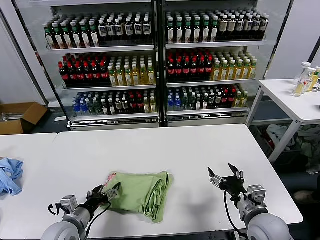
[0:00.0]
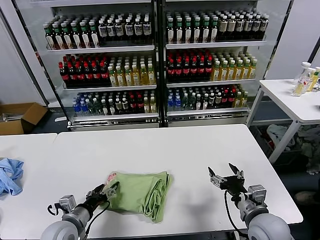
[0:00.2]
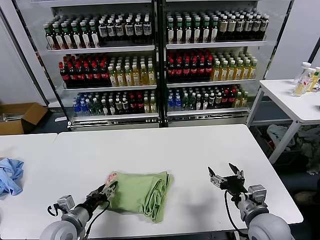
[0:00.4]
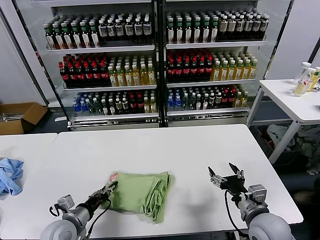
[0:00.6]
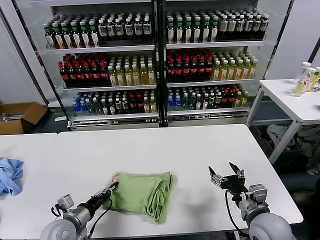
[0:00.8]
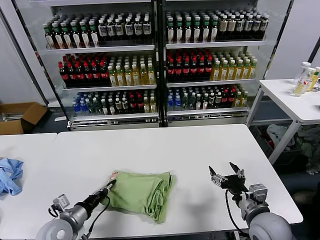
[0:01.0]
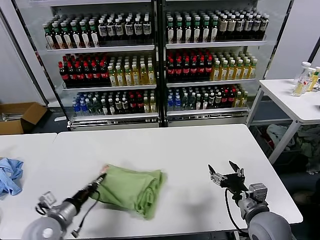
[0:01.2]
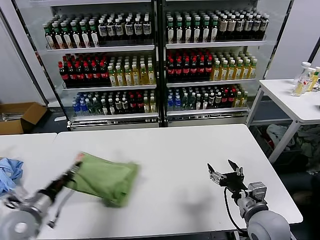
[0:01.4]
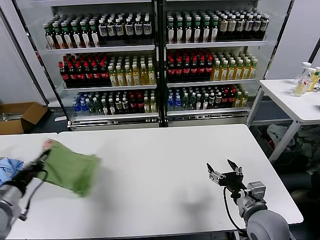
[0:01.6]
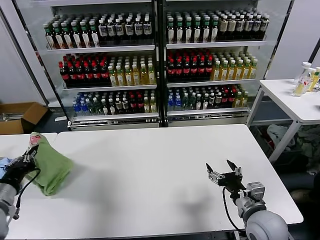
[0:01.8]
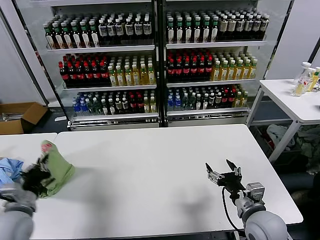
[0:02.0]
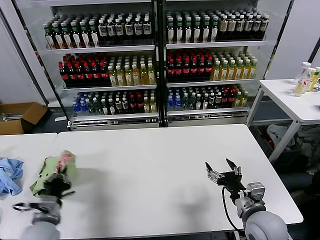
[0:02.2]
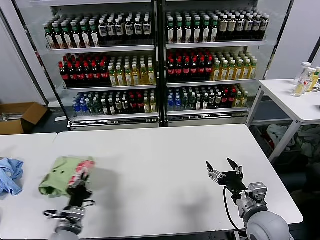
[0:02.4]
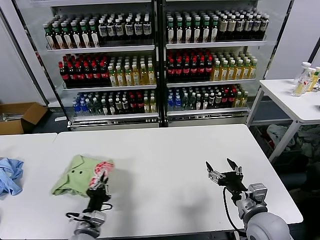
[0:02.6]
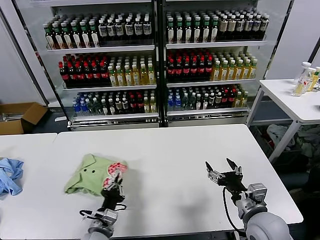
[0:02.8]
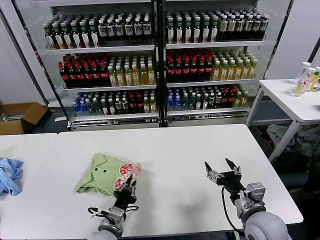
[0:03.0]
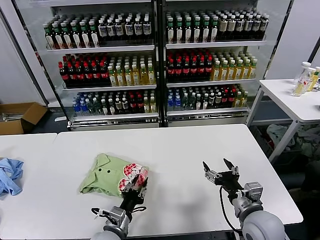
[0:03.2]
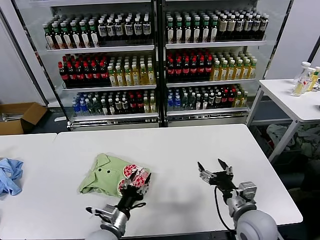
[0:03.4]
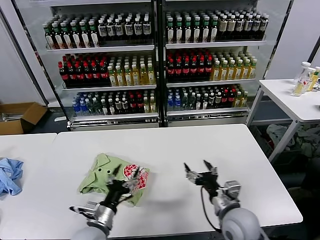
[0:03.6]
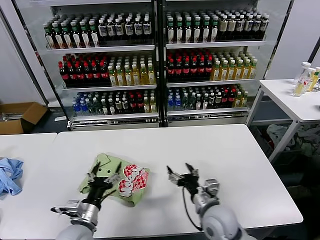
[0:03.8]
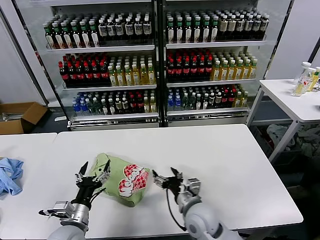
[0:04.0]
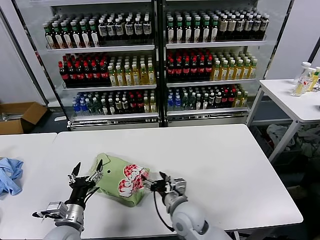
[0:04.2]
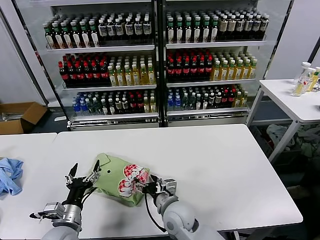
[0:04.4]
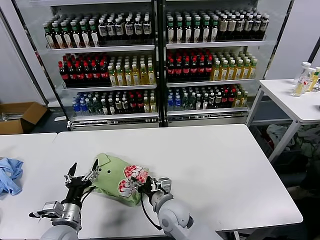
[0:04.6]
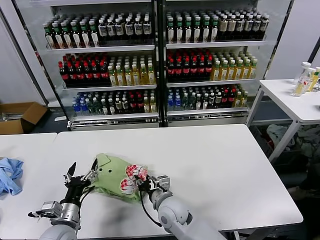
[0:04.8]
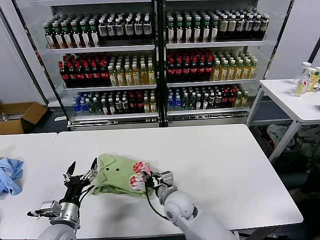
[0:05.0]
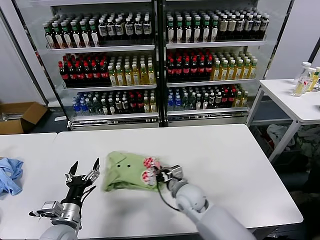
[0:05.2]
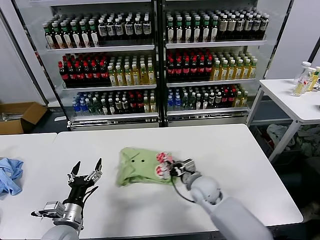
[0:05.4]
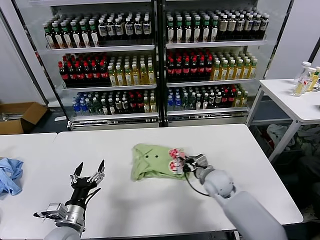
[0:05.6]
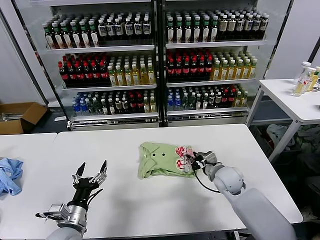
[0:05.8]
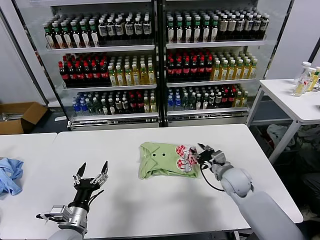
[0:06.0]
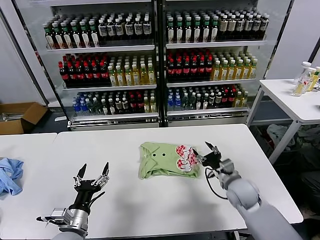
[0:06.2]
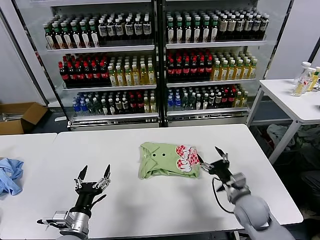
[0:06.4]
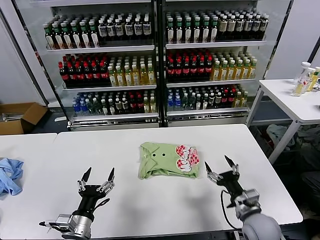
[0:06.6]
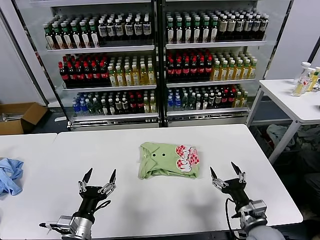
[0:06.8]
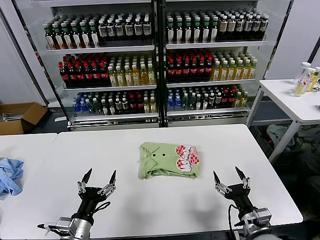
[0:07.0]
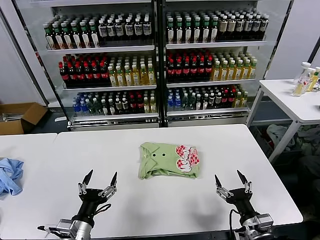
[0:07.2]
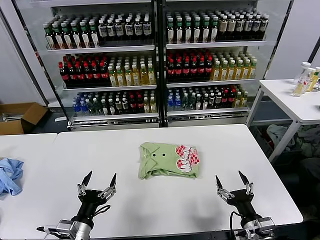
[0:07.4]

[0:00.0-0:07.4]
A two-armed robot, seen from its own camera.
Task of the whole recording: fold and organize the clothes.
Step, 0:00.0 to 0:03.4: Flip the folded clothes over with left gripper.
Step, 0:03.6 to 0:06.0: Drag the clothes to the center of the table.
0:00.0 to 0:01.4: The left gripper heads to the left and upward, covering roughly 10 cm, and closes its fingers.
0:01.4 to 0:03.0: The left gripper goes about 20 cm to the right and downward.
0:03.0 to 0:04.4: The left gripper goes about 10 cm to the left, and opens its fingers. The right gripper travels to the left by roughly 20 cm.
0:04.4 to 0:06.0: The right gripper shifts roughly 25 cm to the right and forward, and closes up.
0:06.0 to 0:07.4: The left gripper is displaced backward by roughly 5 cm. The right gripper is displaced backward by about 25 cm, and opens.

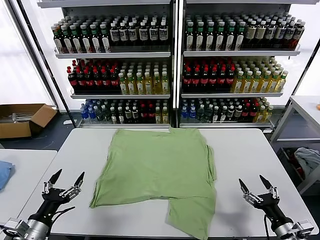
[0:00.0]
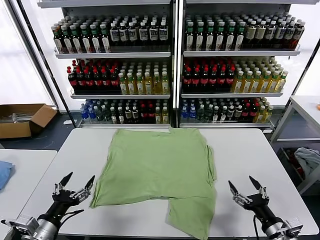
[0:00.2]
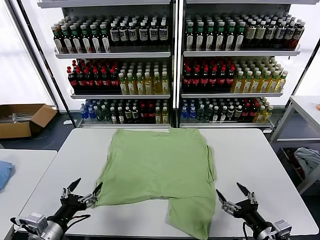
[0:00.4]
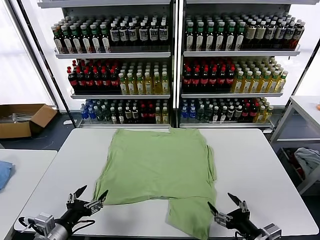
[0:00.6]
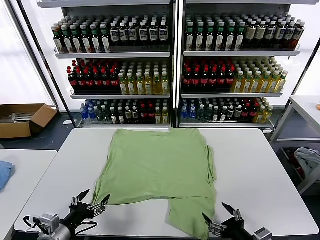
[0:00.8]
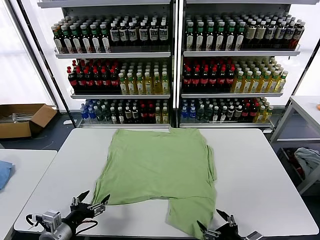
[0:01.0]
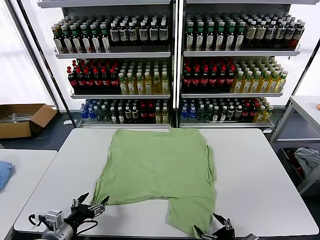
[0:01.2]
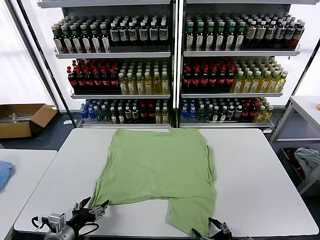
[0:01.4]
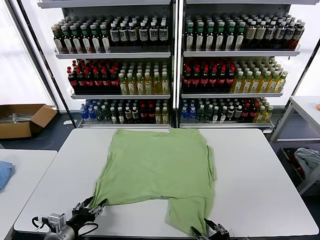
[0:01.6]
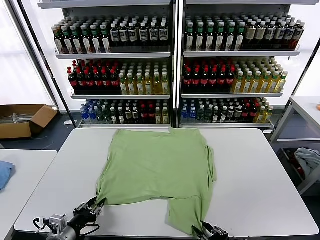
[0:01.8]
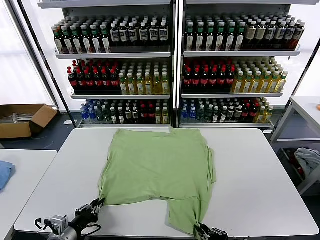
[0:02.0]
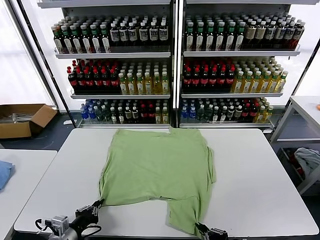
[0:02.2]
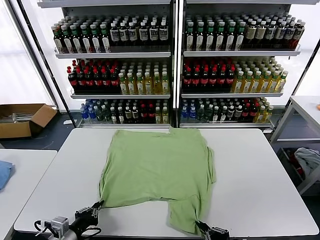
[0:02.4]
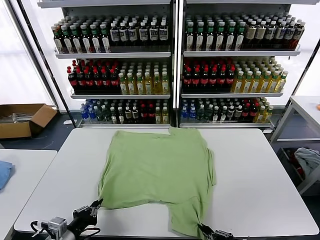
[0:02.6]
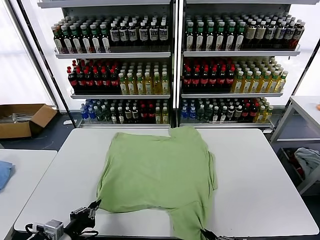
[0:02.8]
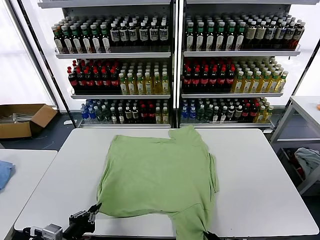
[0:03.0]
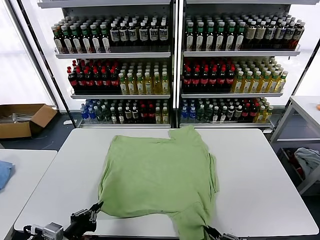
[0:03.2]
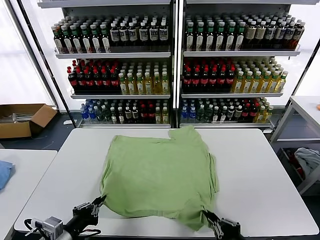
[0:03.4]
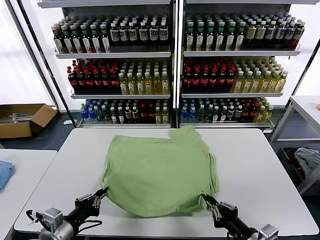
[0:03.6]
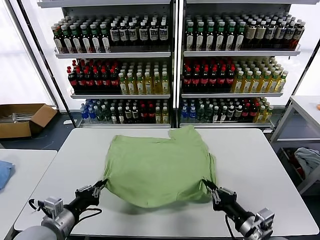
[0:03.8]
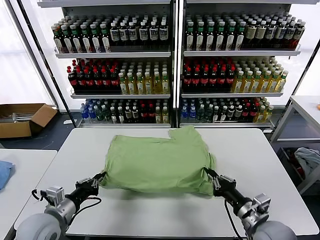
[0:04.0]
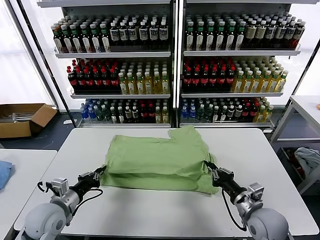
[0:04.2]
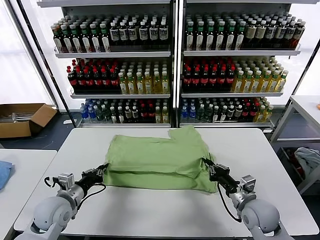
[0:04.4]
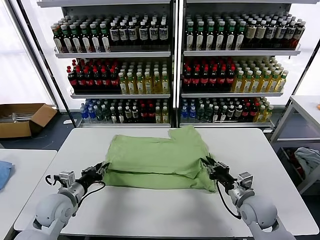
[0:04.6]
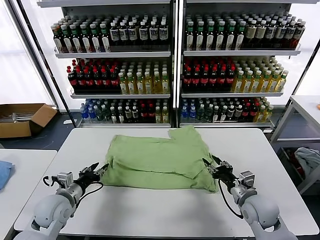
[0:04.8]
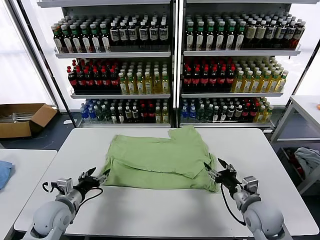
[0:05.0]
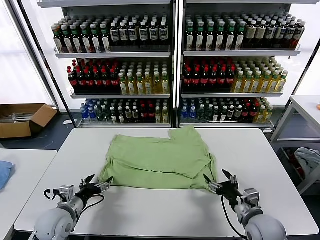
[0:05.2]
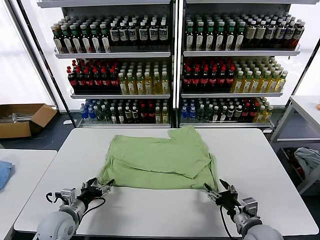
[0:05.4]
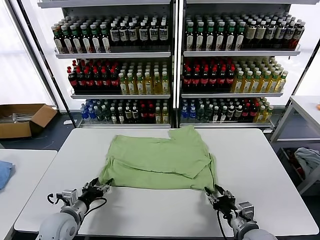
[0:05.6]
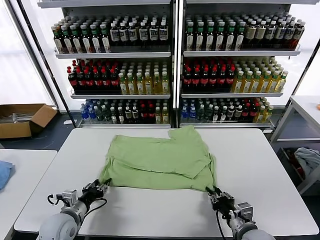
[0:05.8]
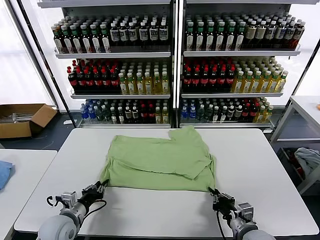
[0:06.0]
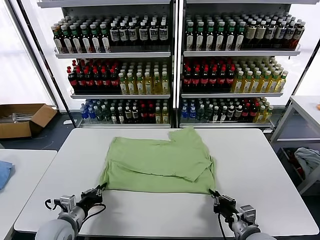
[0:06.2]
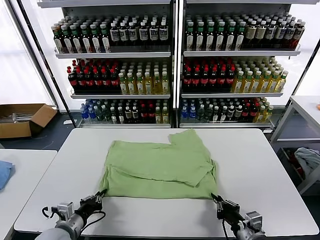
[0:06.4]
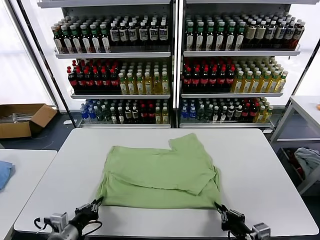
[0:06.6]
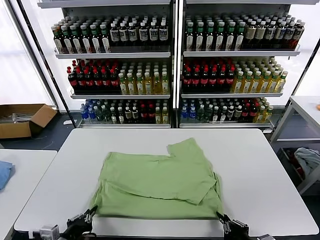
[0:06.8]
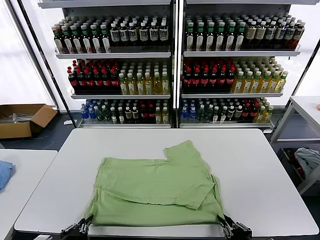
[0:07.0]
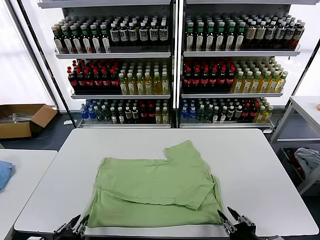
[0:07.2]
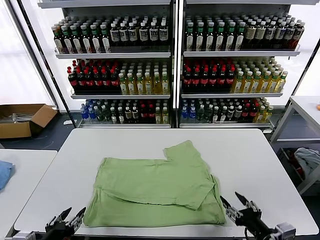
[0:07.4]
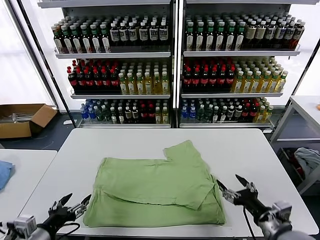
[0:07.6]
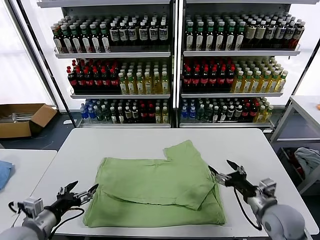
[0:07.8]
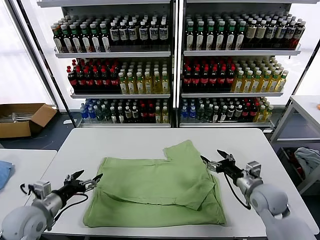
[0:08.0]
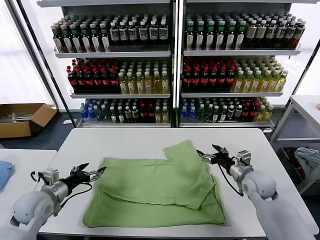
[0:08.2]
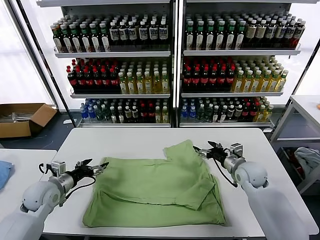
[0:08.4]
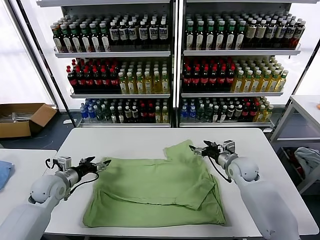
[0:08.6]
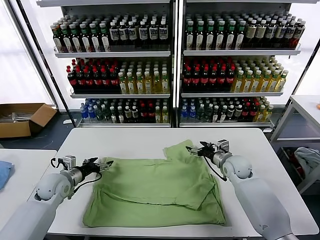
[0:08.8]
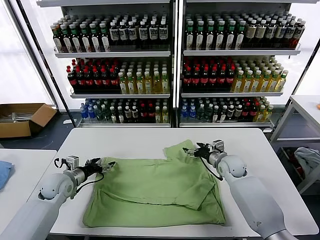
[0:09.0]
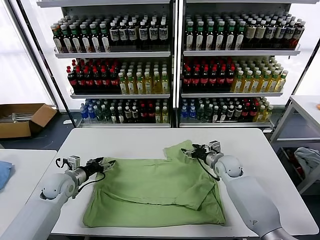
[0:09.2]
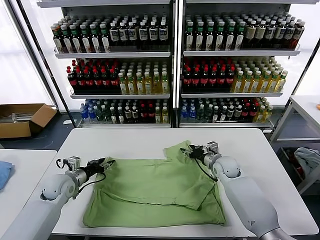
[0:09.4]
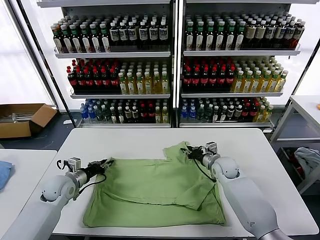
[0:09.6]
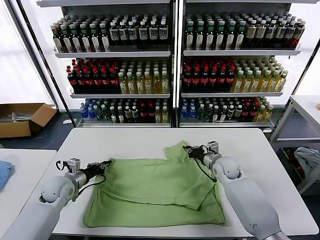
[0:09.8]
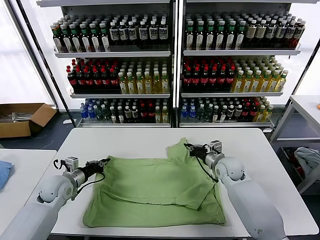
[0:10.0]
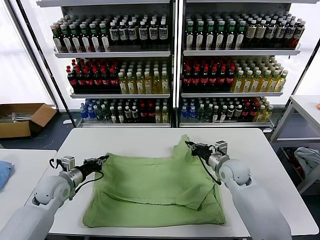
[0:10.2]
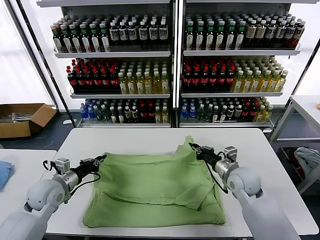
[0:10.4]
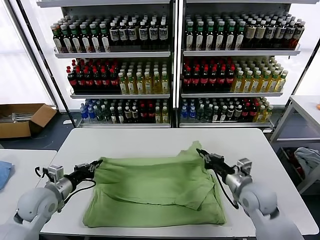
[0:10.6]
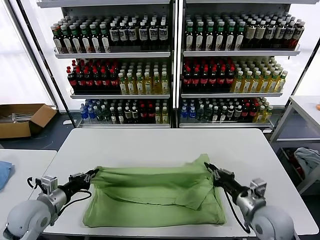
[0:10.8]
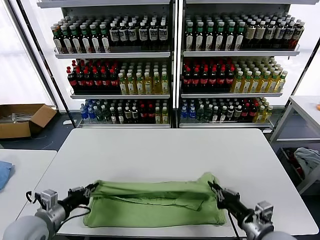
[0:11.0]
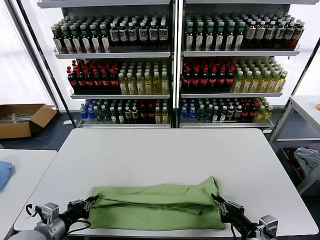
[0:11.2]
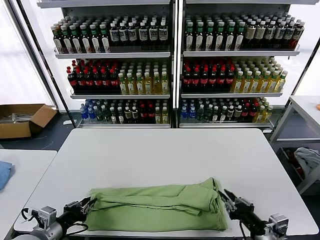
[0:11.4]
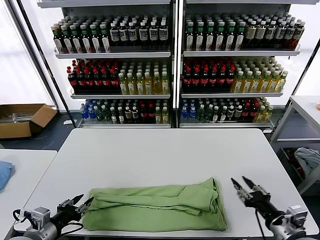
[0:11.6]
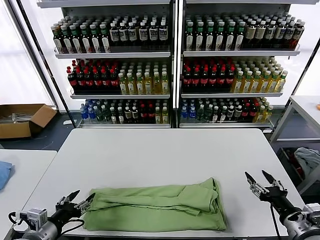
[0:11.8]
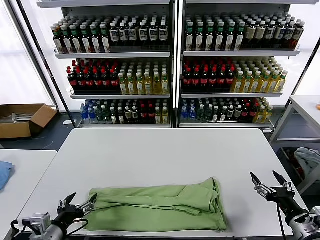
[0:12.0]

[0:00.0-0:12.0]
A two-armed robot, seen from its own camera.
Task of the whole recording: fold and organize the clothes.
Step, 0:00.0 to 0:02.0: use both grippers simultaneously to clamp the lower edge of the clothing fabric.
Step, 0:02.4 to 0:04.8: use both grippers to drag the lower edge of the fabric forward and fold it over the upper edge.
Step, 0:05.2 to 0:07.2: Drag the clothes downward with both gripper.
Step, 0:07.4 to 0:09.8: use both grippers simultaneously to clamp the upper edge of the clothing fabric.
Step, 0:10.0 to 0:11.2: use both grippers to drag the upper edge of the fabric backward and fold it over the lower edge.
0:01.6 to 0:03.0: The left gripper shifts approximately 5 cm upward, and closes up, while the right gripper changes place by about 5 cm, and closes up.
0:03.0 to 0:04.4: The grippers both shift forward by approximately 20 cm.
0:04.4 to 0:06.0: The left gripper heads downward, covering about 5 cm, and opens, then closes once more. Meanwhile the right gripper travels backward by approximately 10 cm, and opens and closes again.
0:06.0 to 0:07.6: The right gripper goes roughly 10 cm upward and to the right, moves roughly 10 cm backward and comes back, and opens up. The left gripper goes approximately 15 cm backward and upward, and opens.
0:07.6 to 0:09.0: Both grippers travel together forward, about 25 cm.
0:09.0 to 0:10.4: The right gripper heads backward and upward, covering about 15 cm, and closes its fingers. The left gripper moves some 5 cm, and closes its fingers.
0:10.4 to 0:12.0: The left gripper heads backward, covering roughly 20 cm, and opens. Meanwhile the right gripper travels backward and to the right by about 25 cm, and opens up.

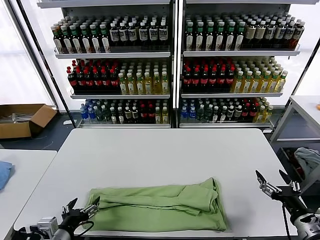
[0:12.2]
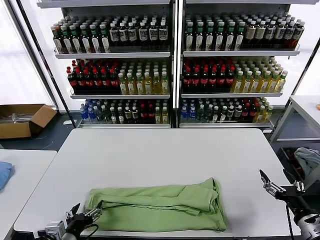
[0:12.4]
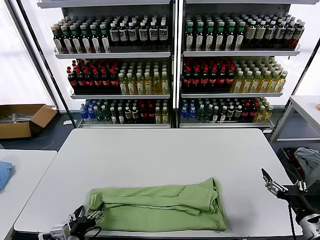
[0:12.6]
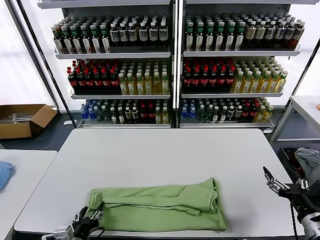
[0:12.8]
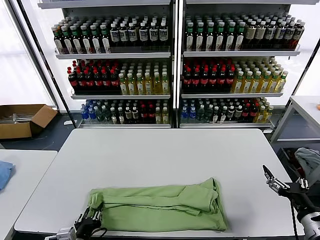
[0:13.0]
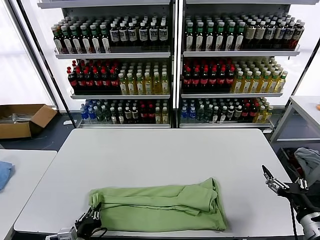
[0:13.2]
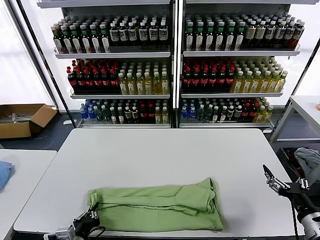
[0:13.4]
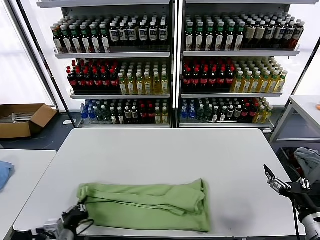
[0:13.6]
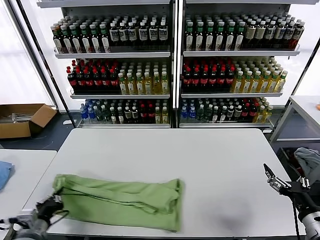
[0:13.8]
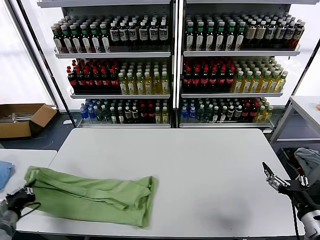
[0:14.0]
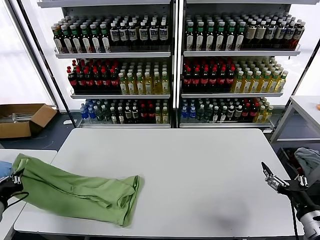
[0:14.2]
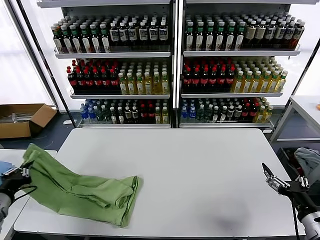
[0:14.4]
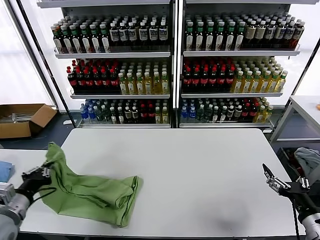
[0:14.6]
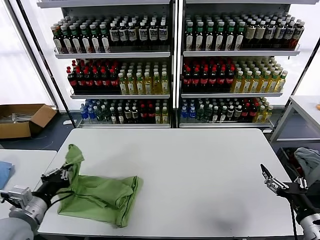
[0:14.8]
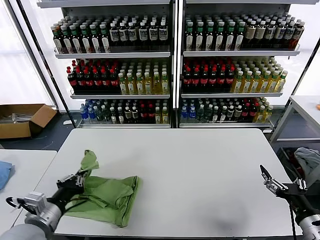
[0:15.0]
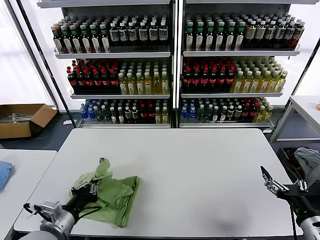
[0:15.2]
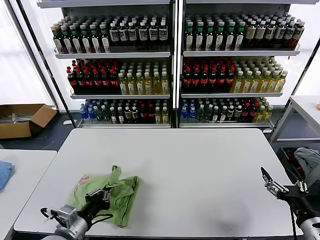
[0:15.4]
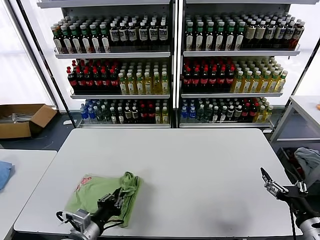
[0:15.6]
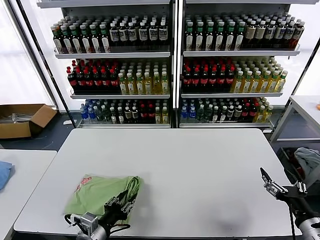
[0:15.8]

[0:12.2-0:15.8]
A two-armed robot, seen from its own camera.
Task of the whole recording: fold and organize the clothes.
Step, 0:12.2 to 0:13.4: use the left gripper to clamp the left edge of the fabric.
0:12.2 to 0:14.0: The left gripper moves to the left, about 15 cm, and closes up.
0:14.0 to 0:15.8: The left gripper goes roughly 20 cm to the right, and opens.
